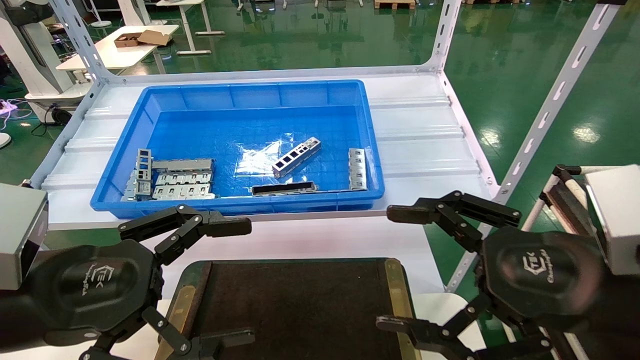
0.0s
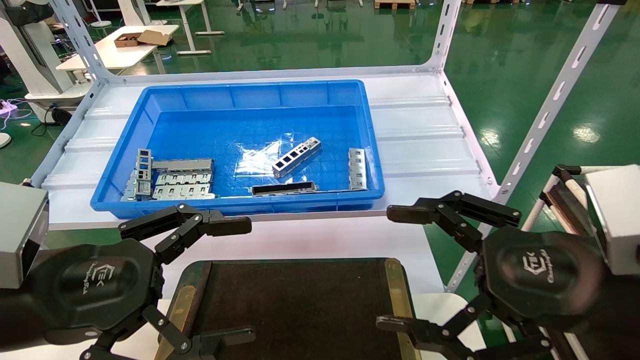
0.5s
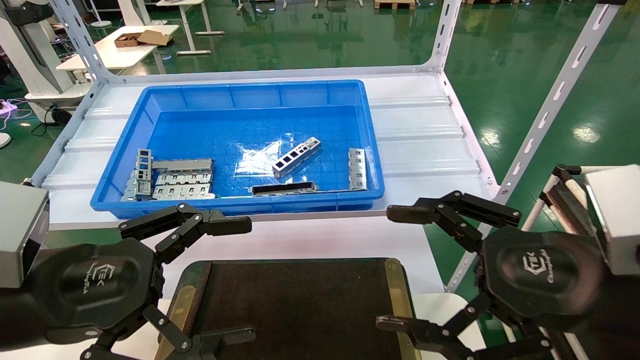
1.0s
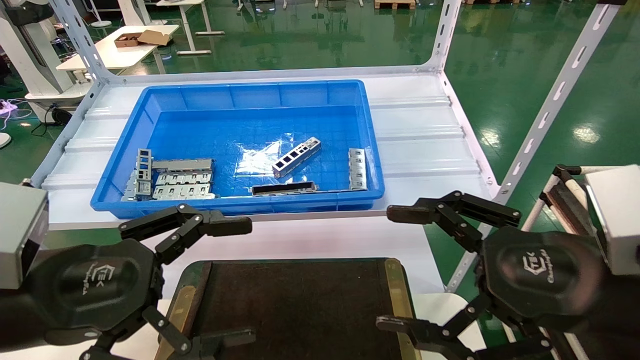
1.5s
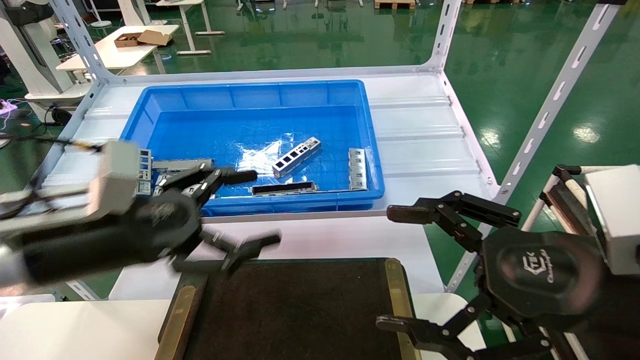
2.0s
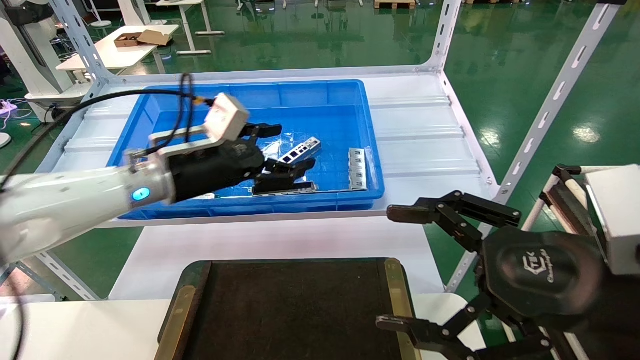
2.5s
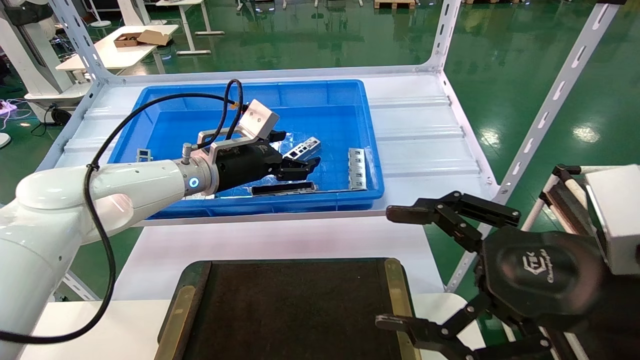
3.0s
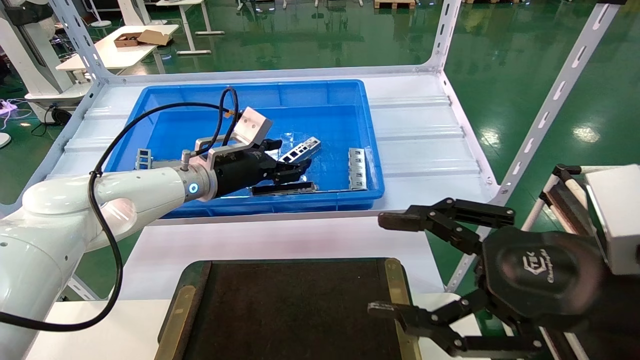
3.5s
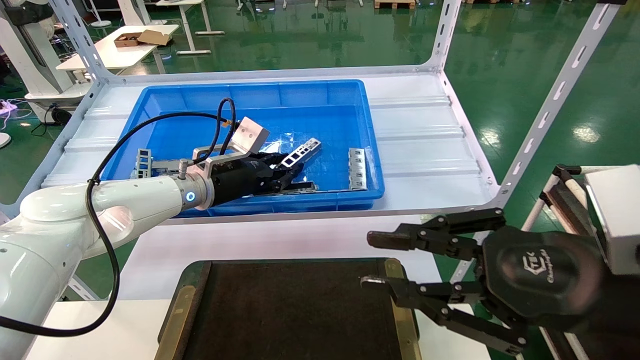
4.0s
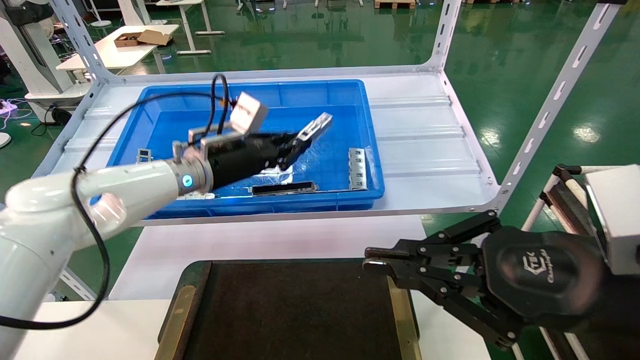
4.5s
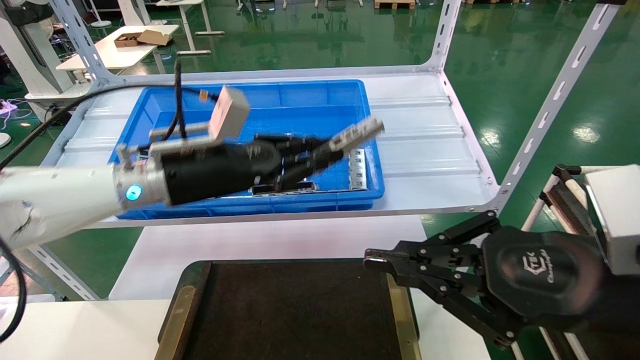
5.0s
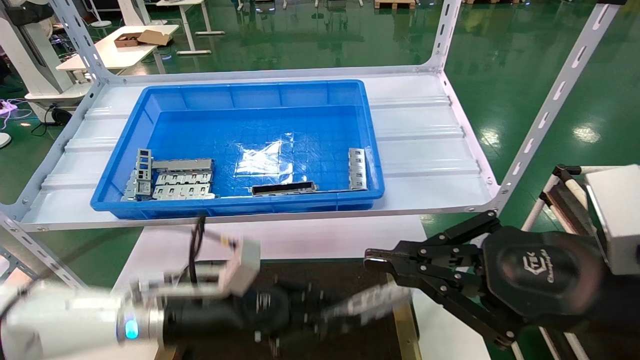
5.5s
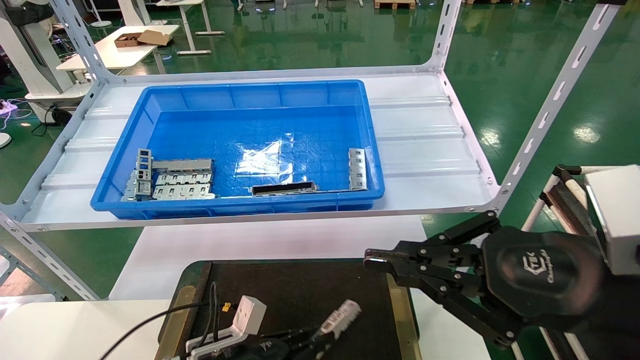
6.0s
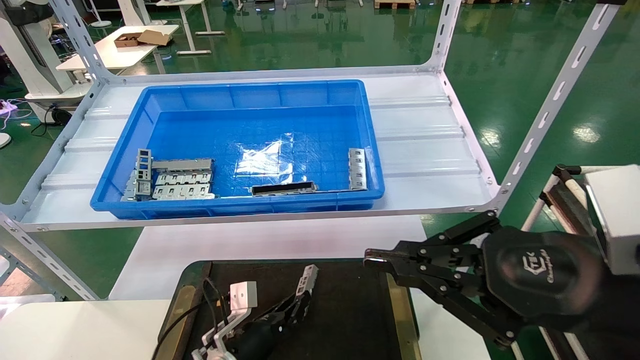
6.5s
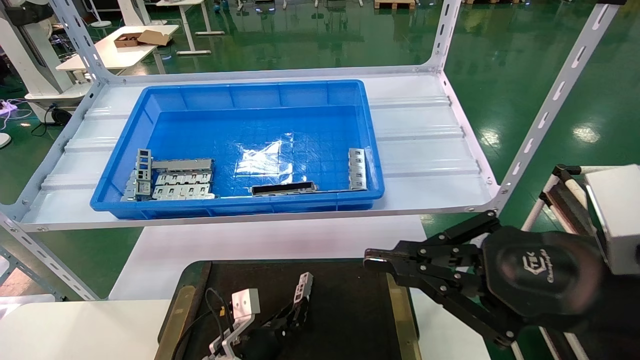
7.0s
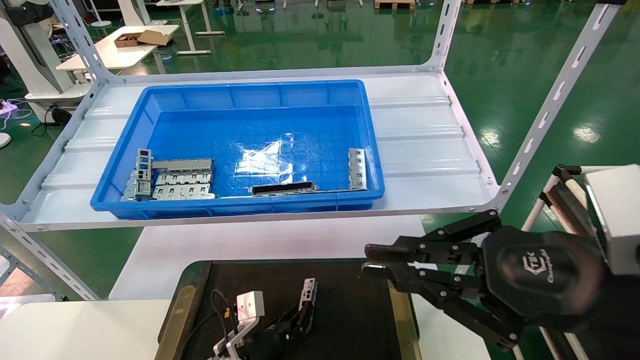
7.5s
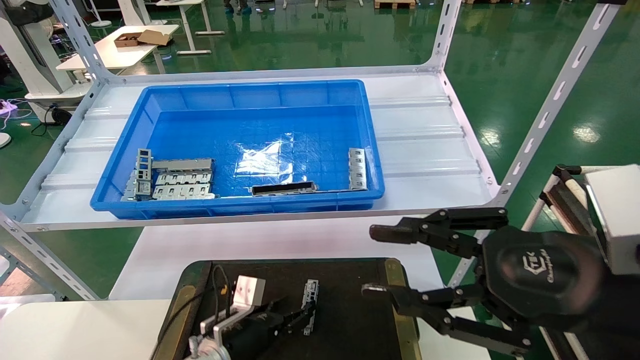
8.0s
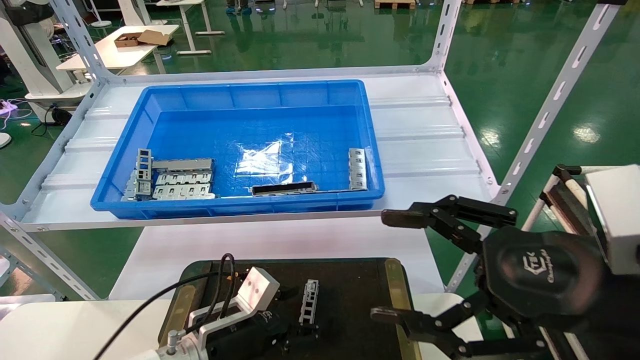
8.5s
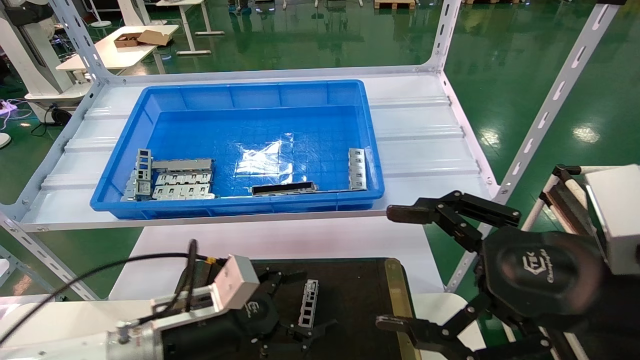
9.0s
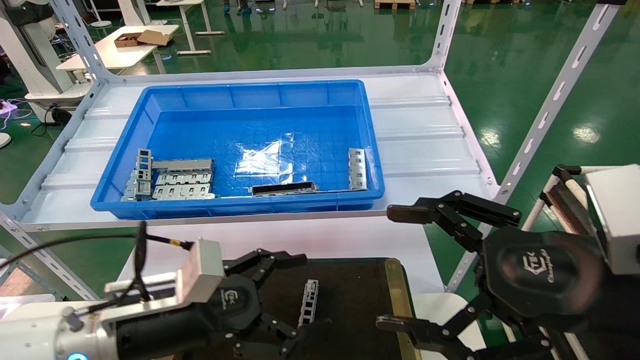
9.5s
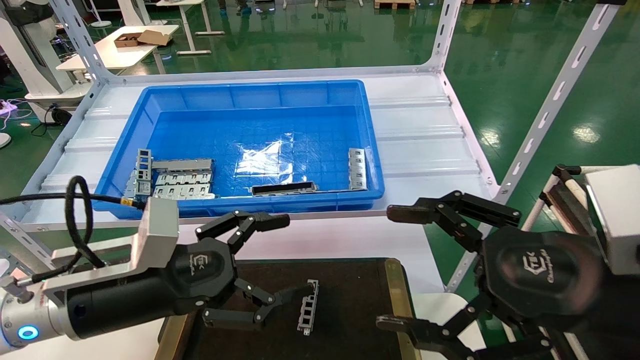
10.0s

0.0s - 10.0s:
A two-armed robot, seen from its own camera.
Task of the whole recording: Grasp the part with one hand and place it on the black container.
Step, 2.0s - 4.5s: Pick up the front USB bracket from the feeding area.
Step, 5.0s - 7.5s: Place the front USB bracket into the box.
0.0s - 2.0s: The left gripper heads forward, covering approximately 10 cm.
2.0s - 4.0s: The left gripper heads forward, covering about 20 cm, and closes. The right gripper closes its fingers.
4.0s - 6.0s: The right gripper closes; the left gripper heads downward and backward, covering about 30 cm.
6.0s - 8.0s: The left gripper opens.
8.0s - 10.0s: The left gripper moves upward and backward, some 25 cm, and opens up, while the right gripper opens.

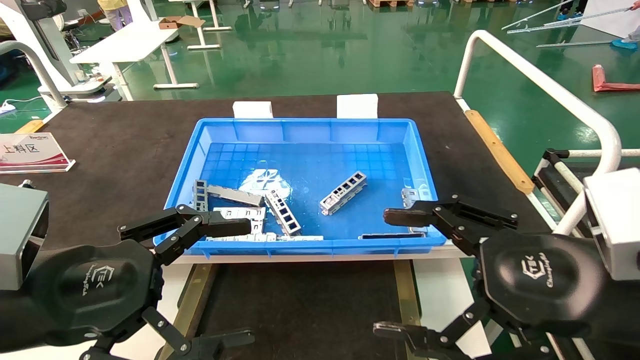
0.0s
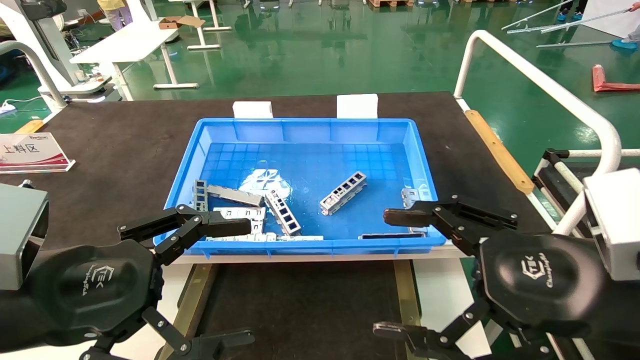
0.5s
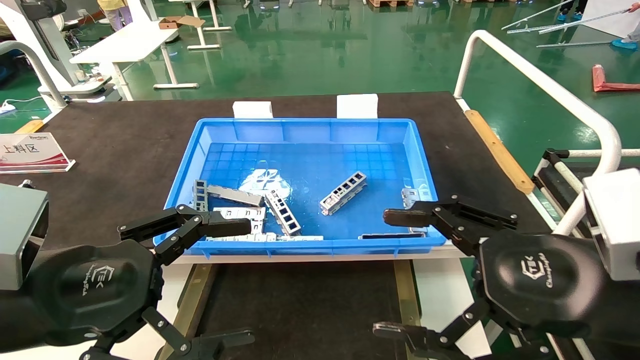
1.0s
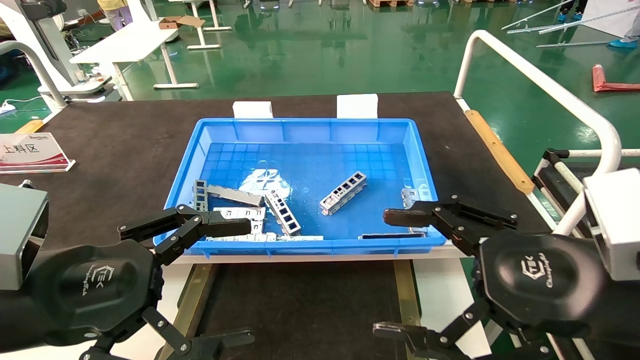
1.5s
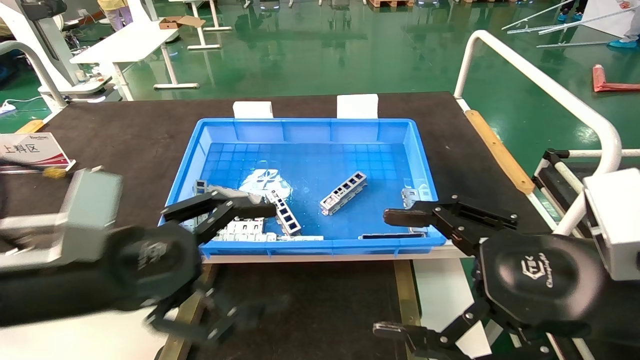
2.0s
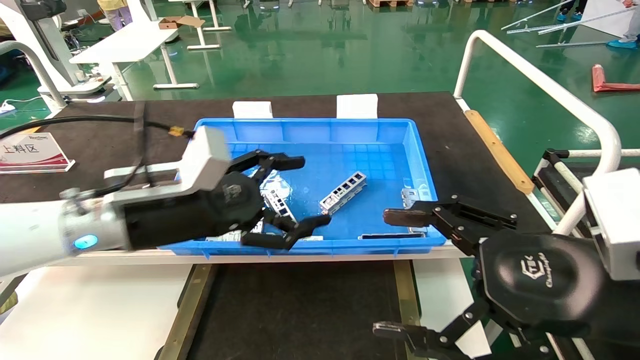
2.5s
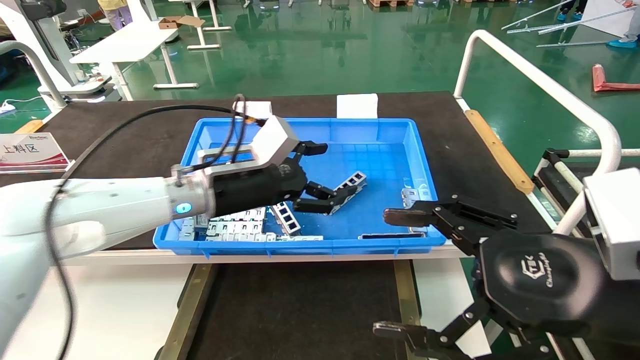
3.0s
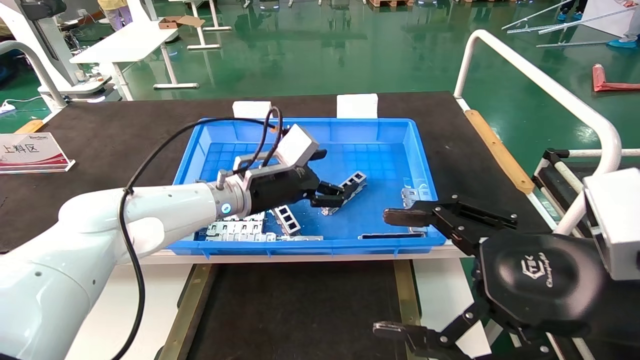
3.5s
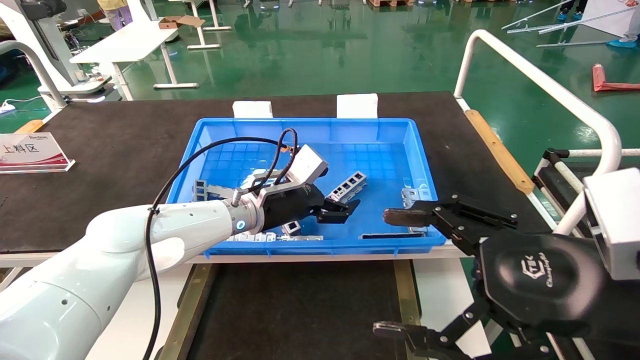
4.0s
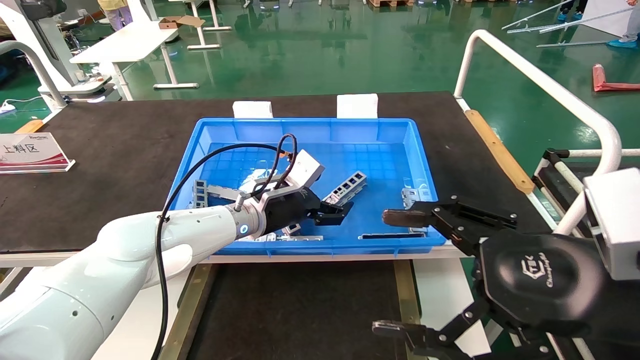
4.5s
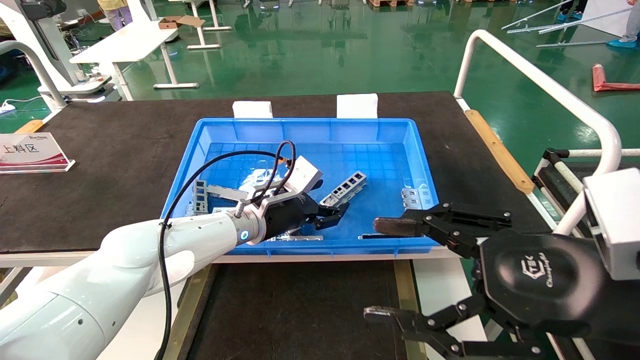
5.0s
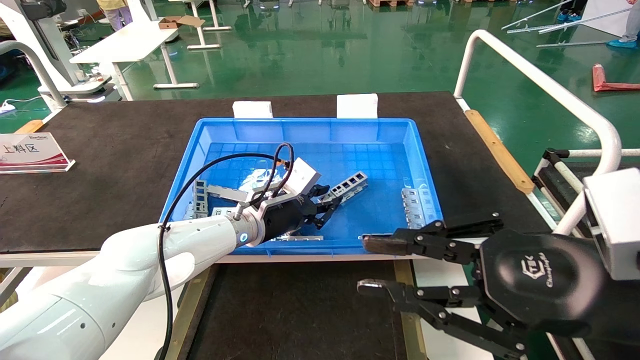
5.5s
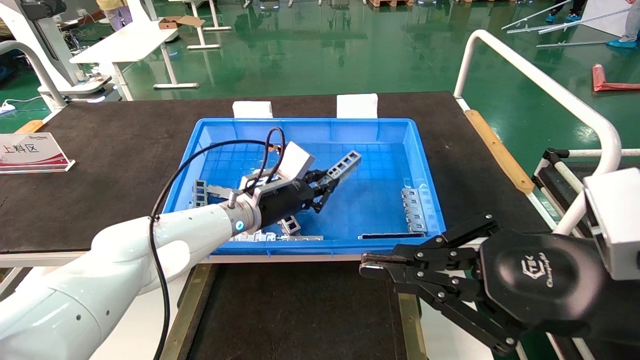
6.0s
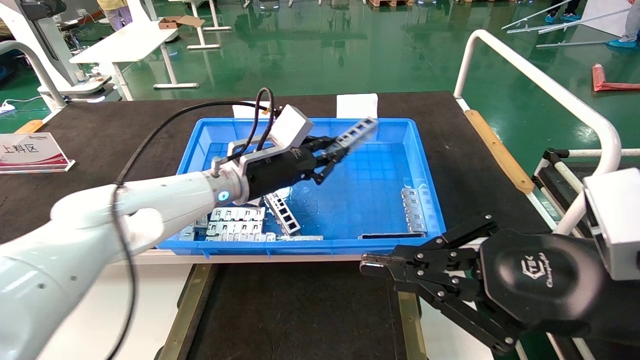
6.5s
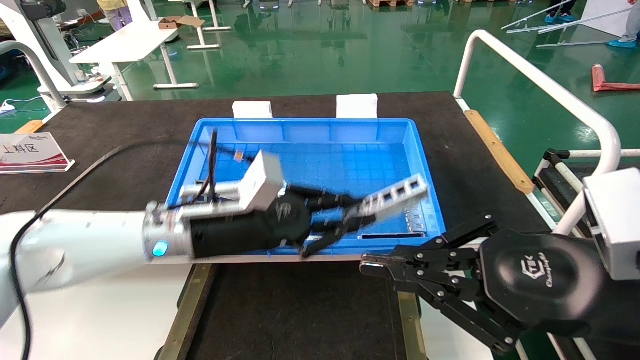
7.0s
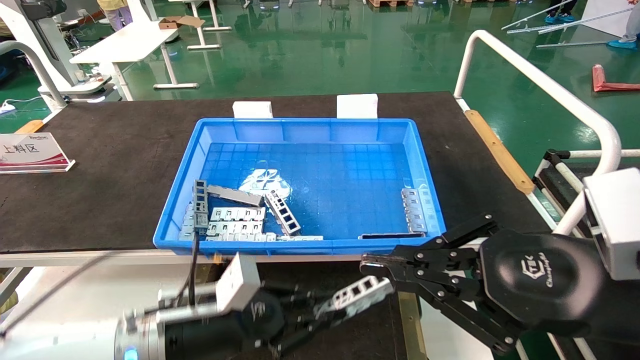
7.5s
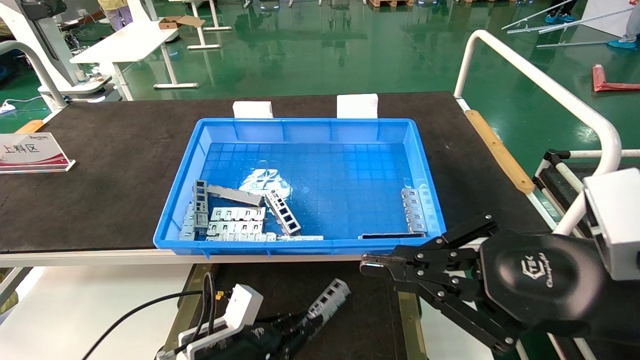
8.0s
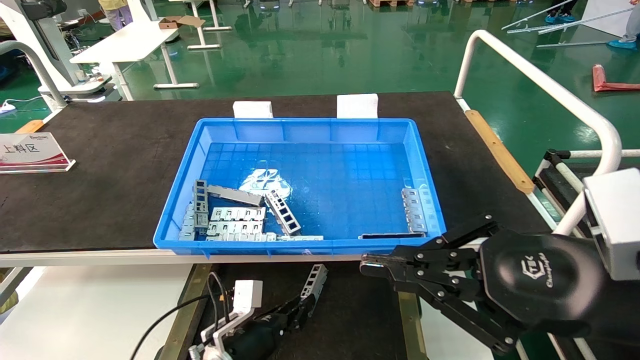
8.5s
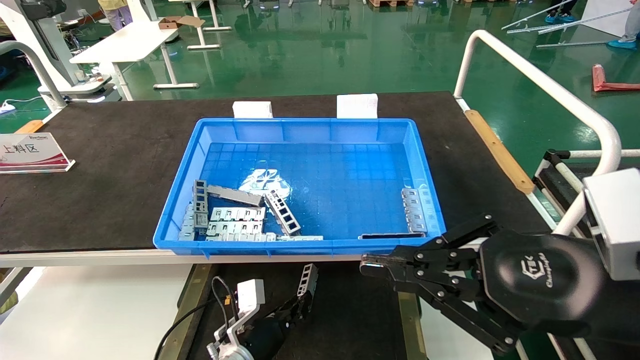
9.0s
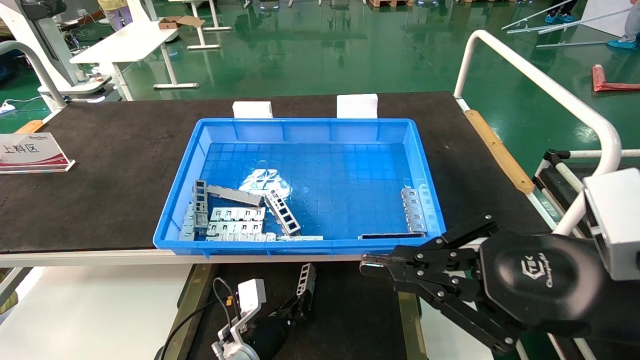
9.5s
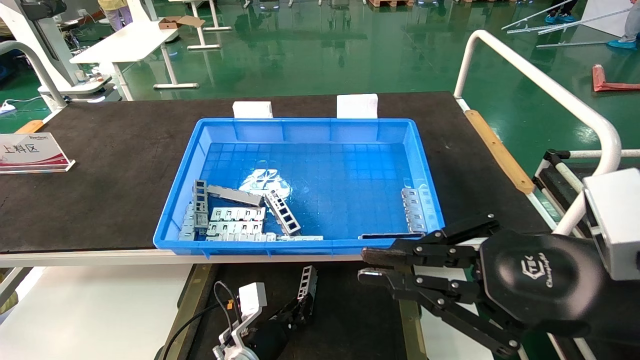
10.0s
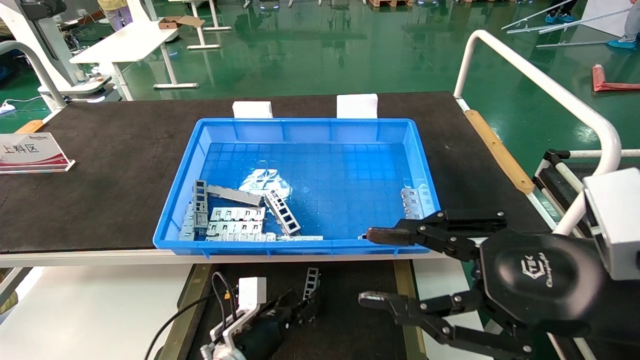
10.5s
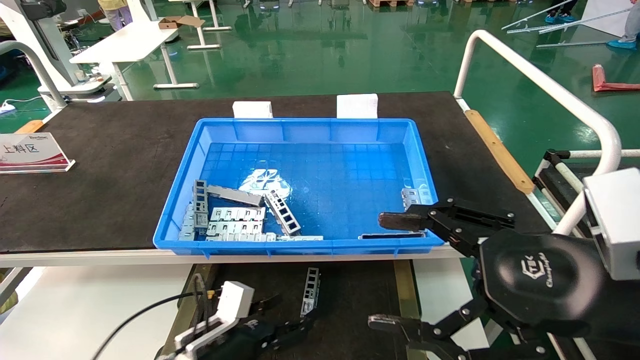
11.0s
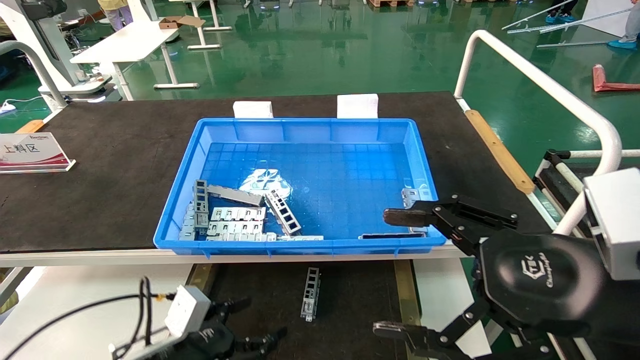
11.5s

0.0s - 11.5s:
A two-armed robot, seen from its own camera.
Task of the whole recording: Grasp the part with one hand and place it on the black container.
Step, 2.0s - 6.0s: Pick up the front USB bracket from the feeding area.
Step, 6.5s - 10.0s: Place the front USB bracket into the box.
0.0s - 2.0s: The grippers move only a little.
2.0s - 4.0s: The left gripper heads forward and to the right, covering approximately 30 cm.
4.0s - 6.0s: The right gripper closes its fingers; the left gripper closes its fingers.
6.0s - 7.5s: The left gripper shifts about 20 cm backward, downward and to the left.
7.5s - 9.5s: The left gripper shifts some 20 cm downward, forward and to the right.
9.5s - 11.5s: The left gripper moves to the left, backward and upward, about 20 cm, and opens. The right gripper opens.
